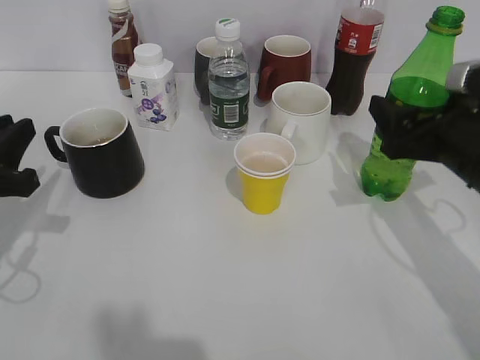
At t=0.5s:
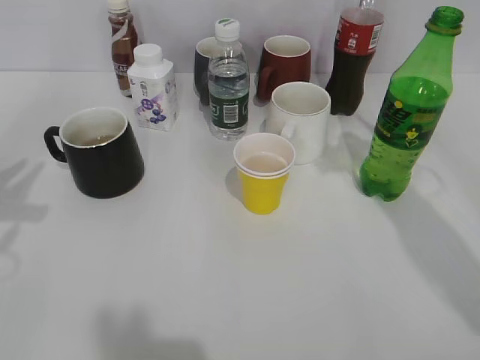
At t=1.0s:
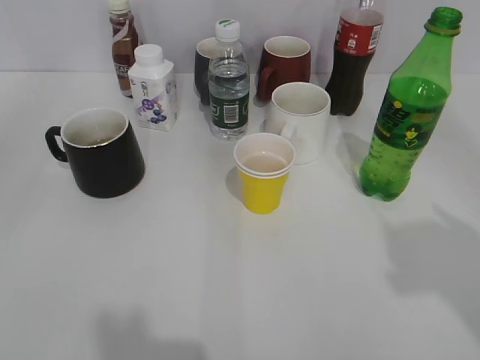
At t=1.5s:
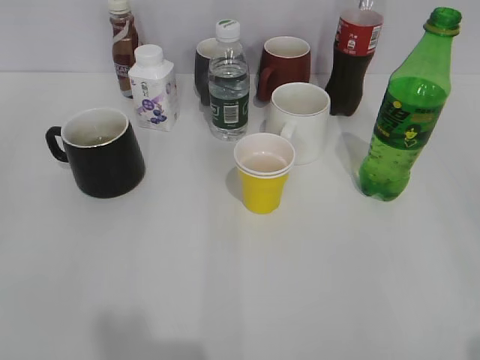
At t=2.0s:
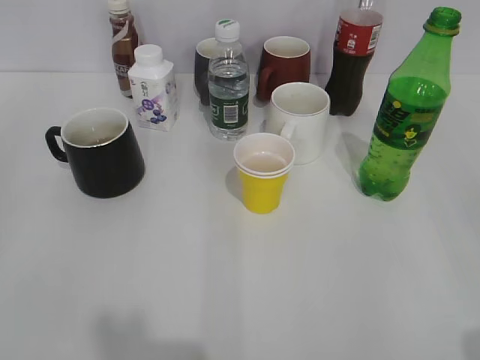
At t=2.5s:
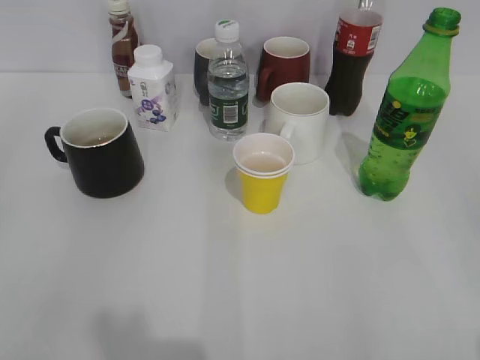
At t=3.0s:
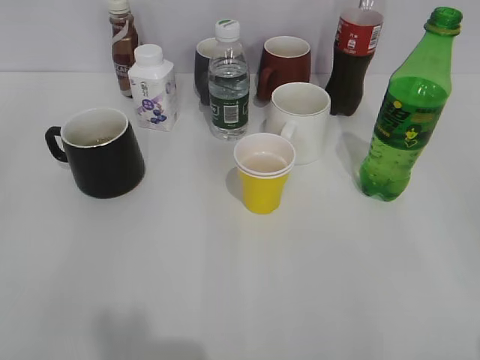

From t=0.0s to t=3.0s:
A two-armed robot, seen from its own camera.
From t=0.0s to t=1.5s: The two grippers go roughly 25 cm backward and upward. The left gripper opens up.
